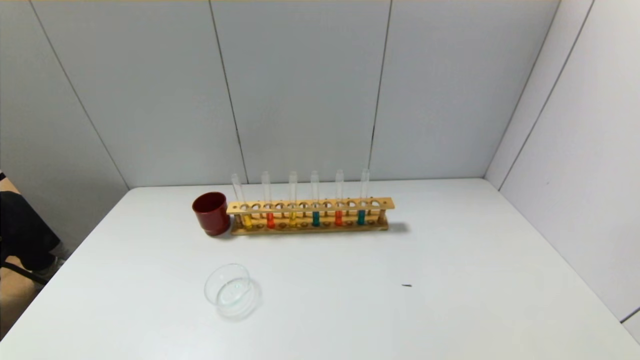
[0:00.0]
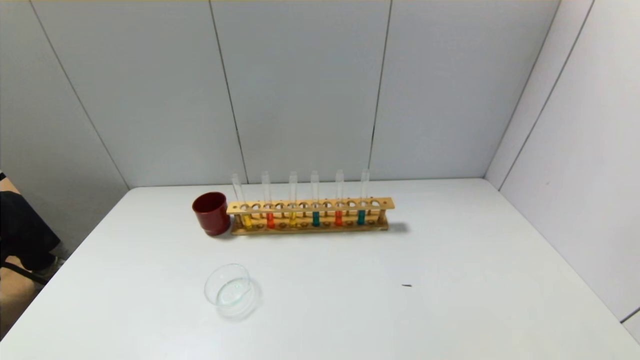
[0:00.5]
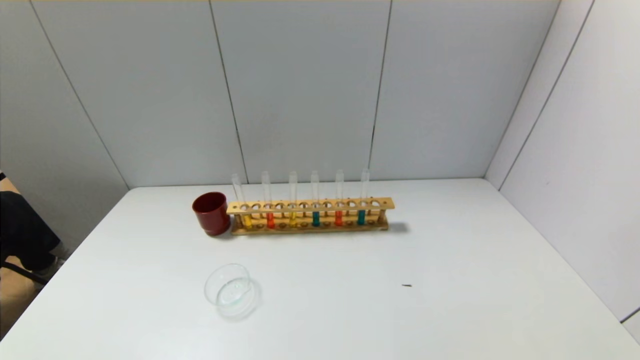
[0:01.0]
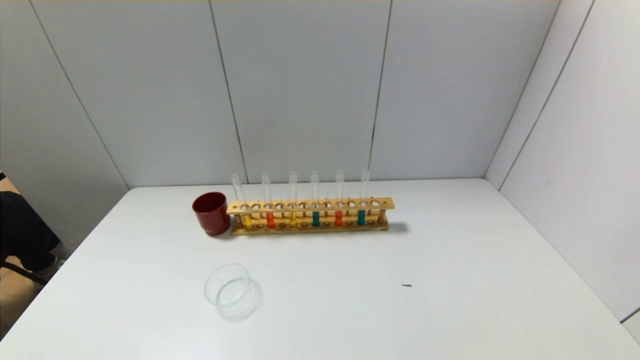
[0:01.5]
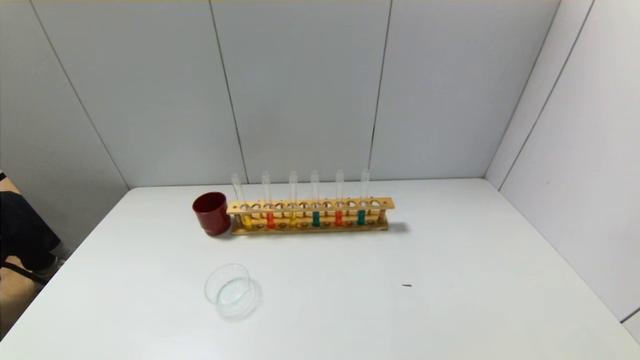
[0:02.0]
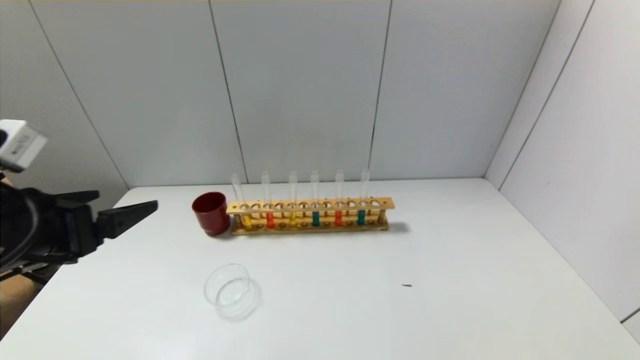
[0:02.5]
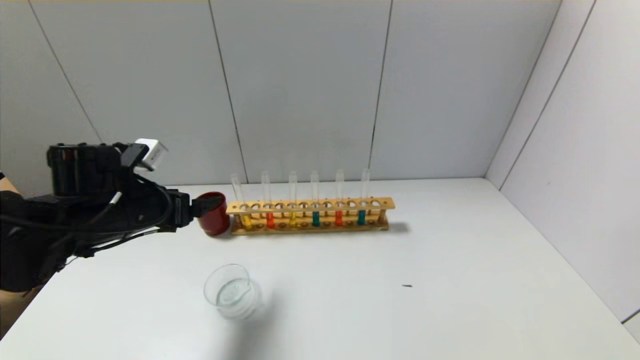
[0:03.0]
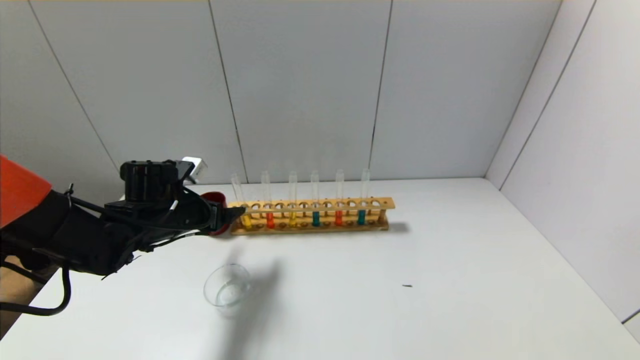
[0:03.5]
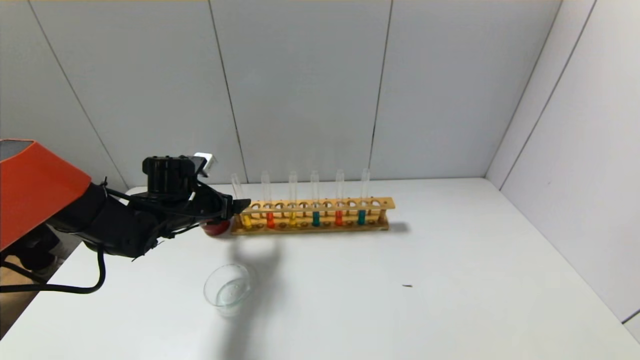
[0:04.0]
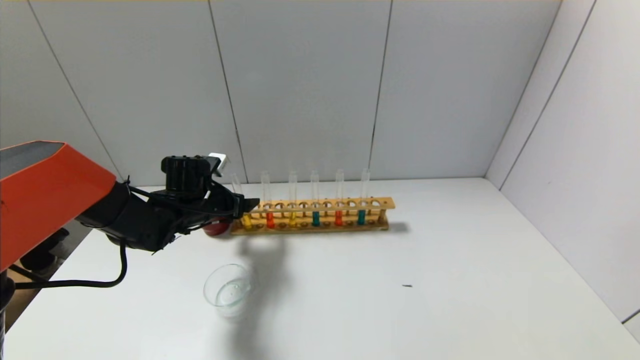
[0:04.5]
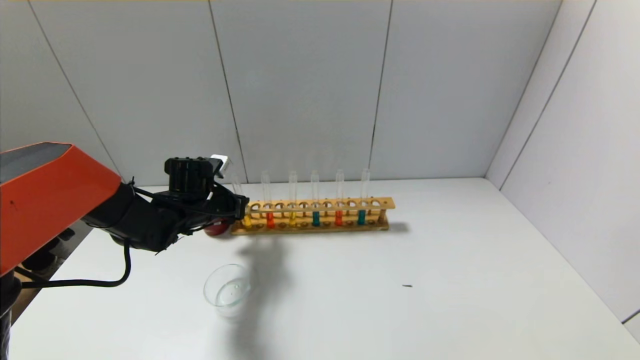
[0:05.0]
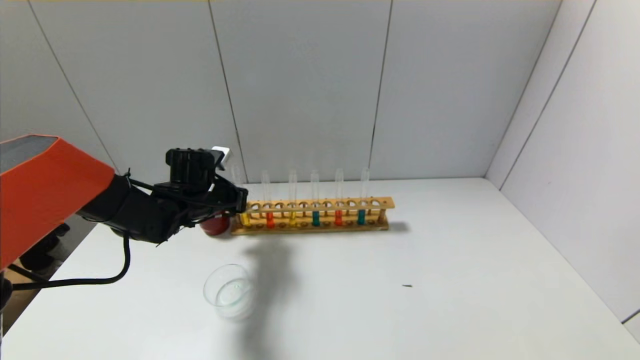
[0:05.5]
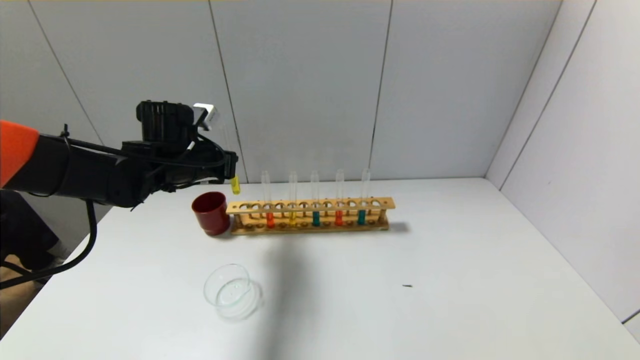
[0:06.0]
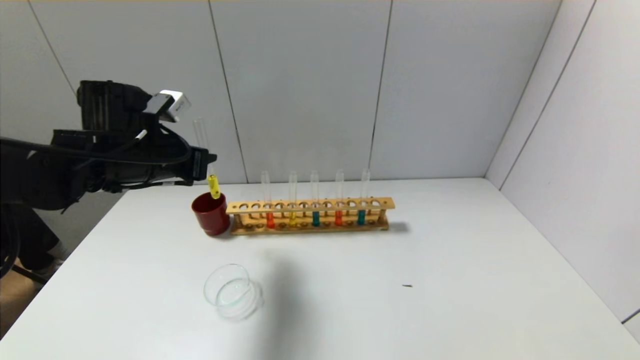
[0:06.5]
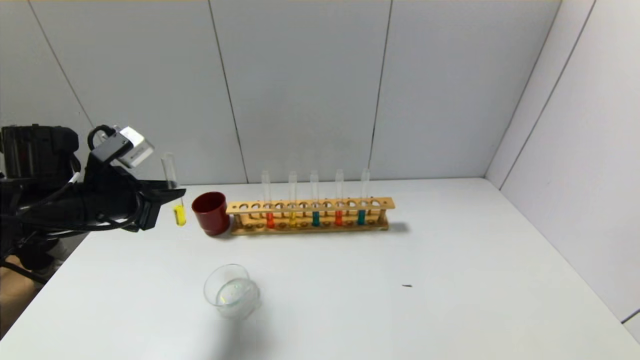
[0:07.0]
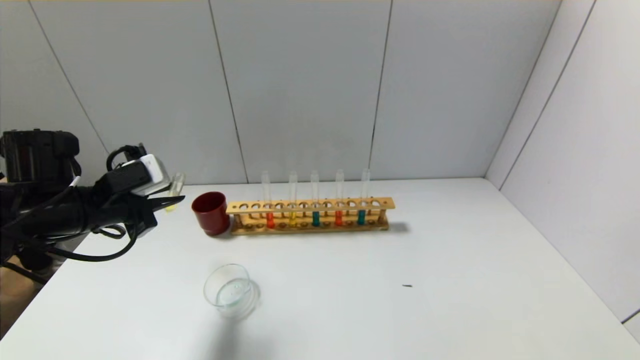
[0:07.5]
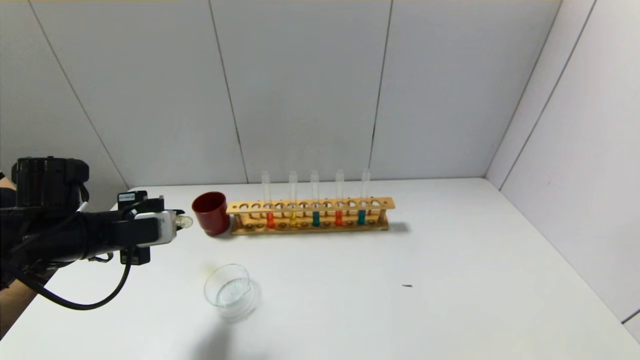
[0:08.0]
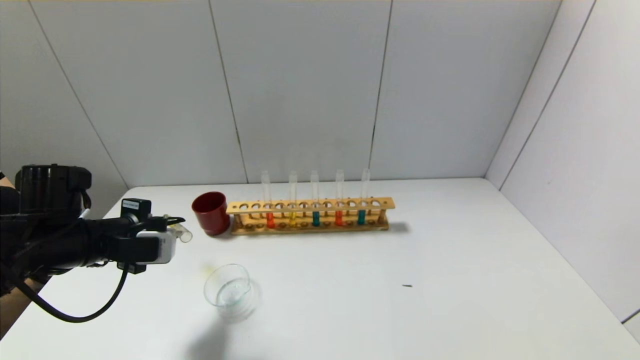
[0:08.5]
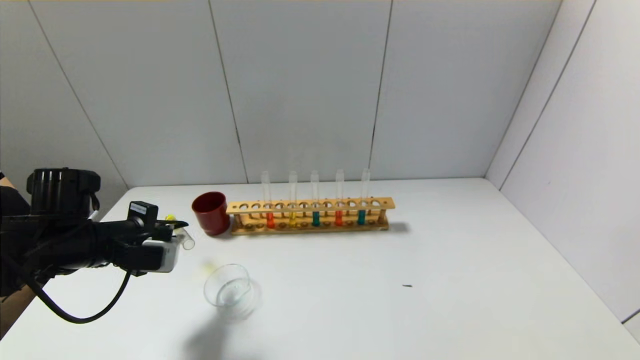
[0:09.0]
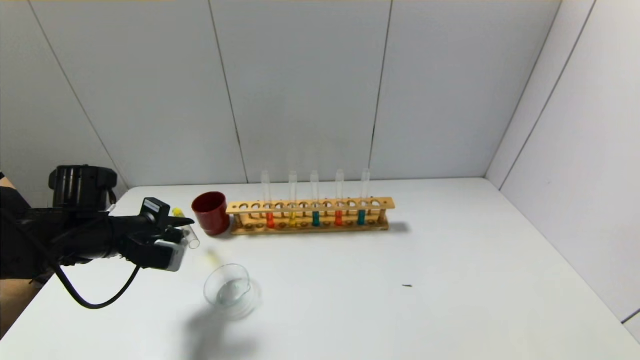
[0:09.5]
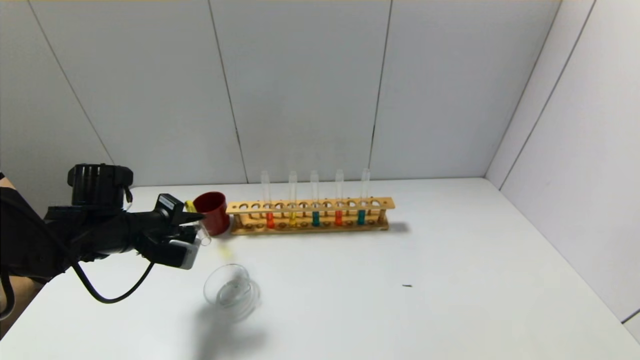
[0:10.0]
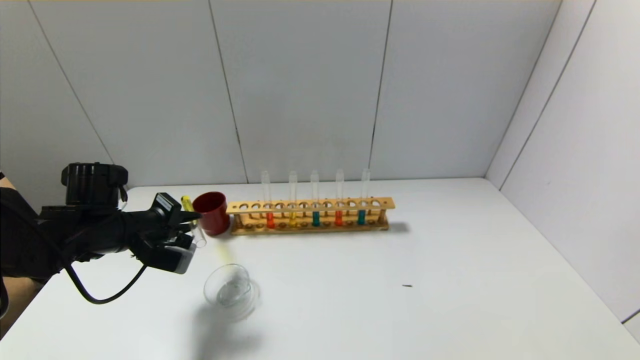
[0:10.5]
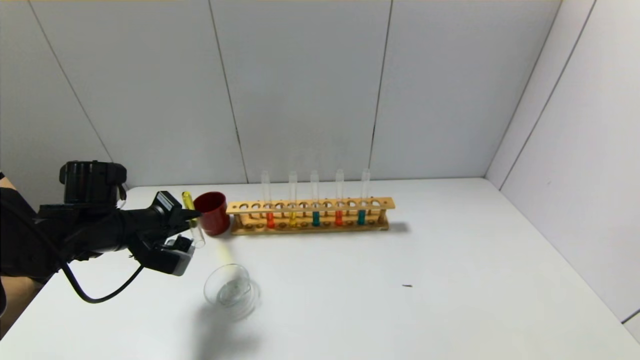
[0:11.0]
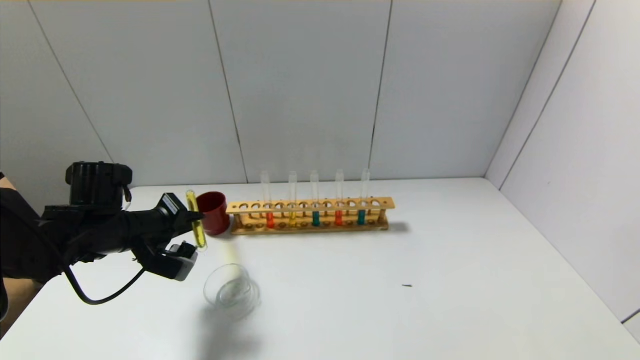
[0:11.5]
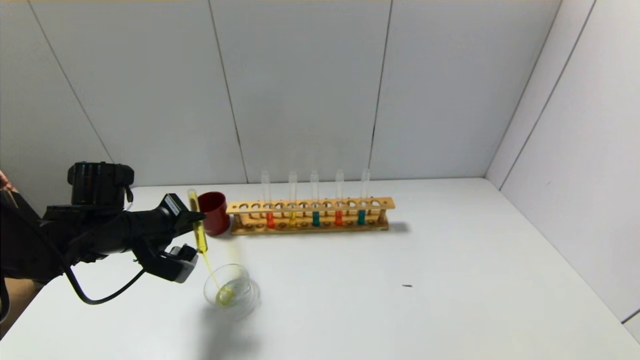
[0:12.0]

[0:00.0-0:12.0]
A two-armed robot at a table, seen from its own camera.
Step, 0:00.0 to 0:05.0: Grasp the yellow reagent with the left gripper.
0:02.0 to 0:04.0: The left gripper heads forward, covering roughly 40 cm.
0:04.0 to 0:06.0: The left gripper travels upward by some 10 cm, and closes its fingers.
0:06.0 to 0:08.0: The left gripper moves backward and to the left, approximately 15 cm.
0:08.0 to 0:10.0: The left gripper ends up about 5 cm from where it was.
0:10.0 to 0:12.0: The grippers make only small movements.

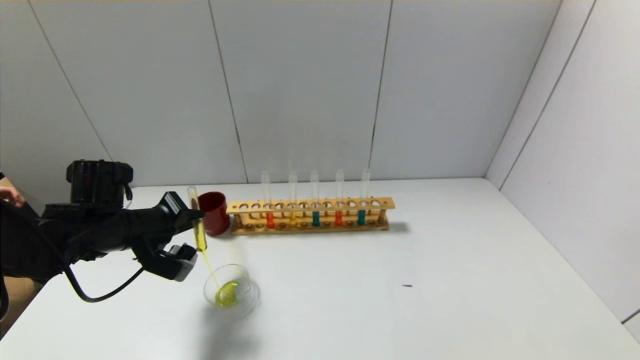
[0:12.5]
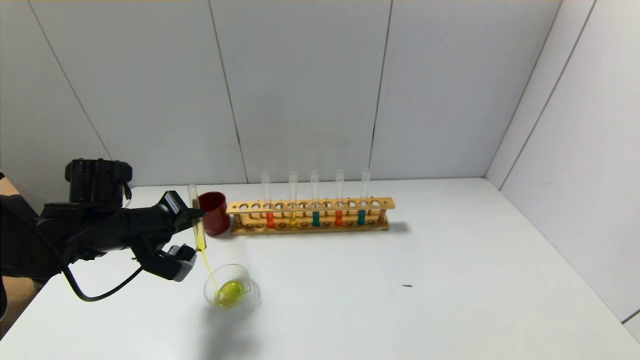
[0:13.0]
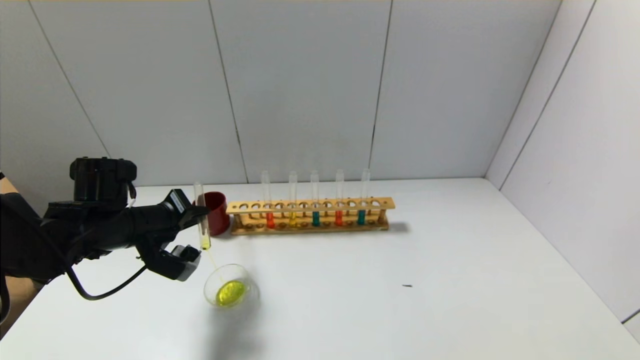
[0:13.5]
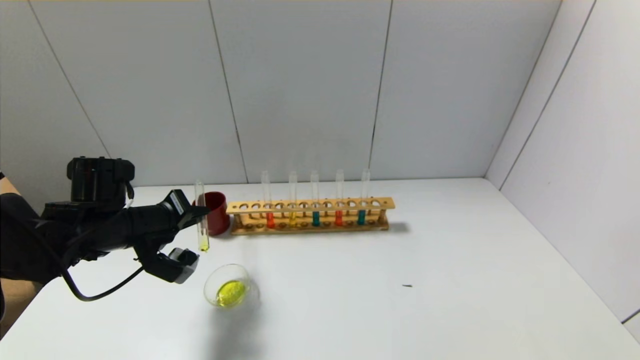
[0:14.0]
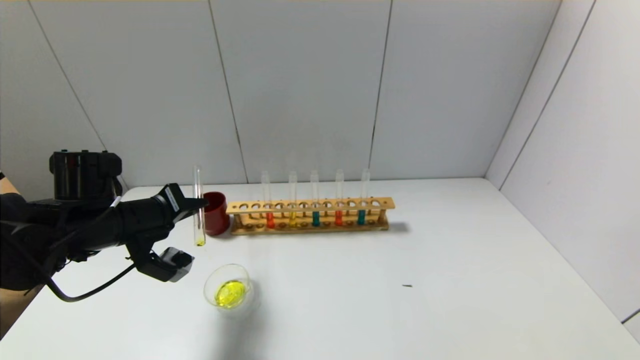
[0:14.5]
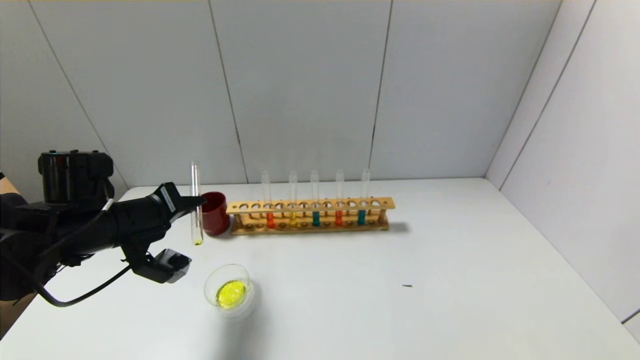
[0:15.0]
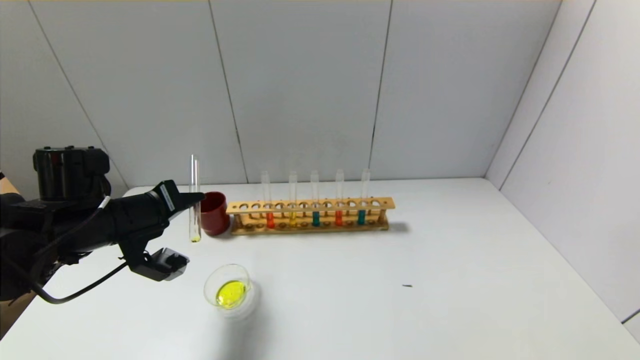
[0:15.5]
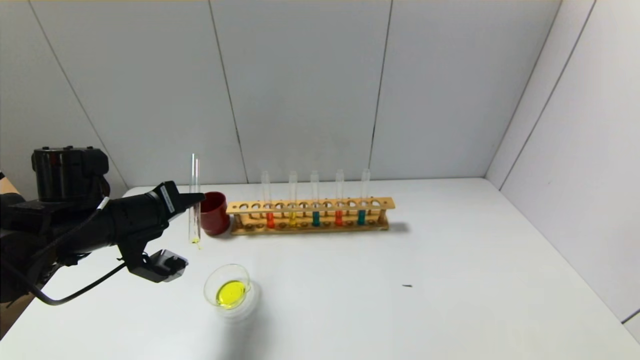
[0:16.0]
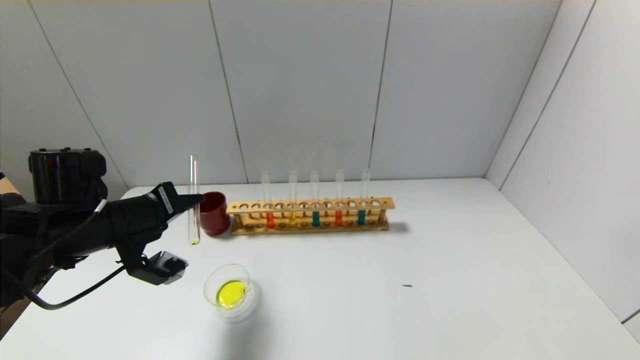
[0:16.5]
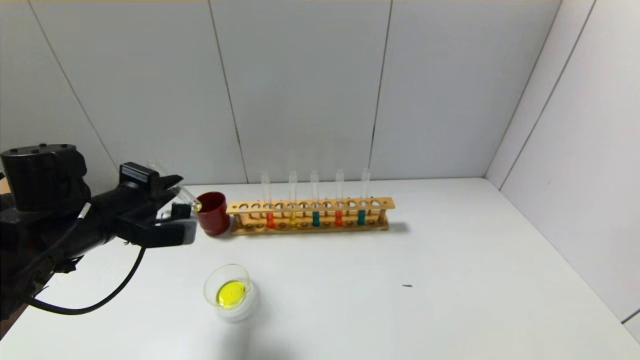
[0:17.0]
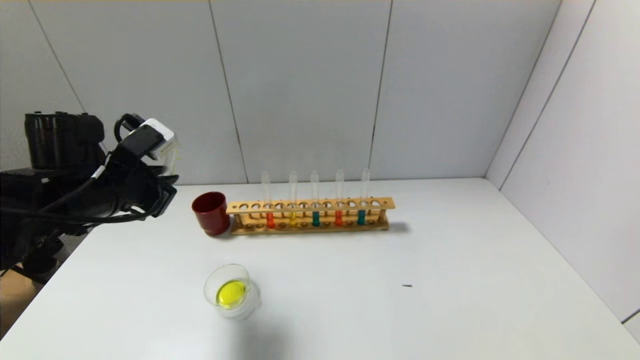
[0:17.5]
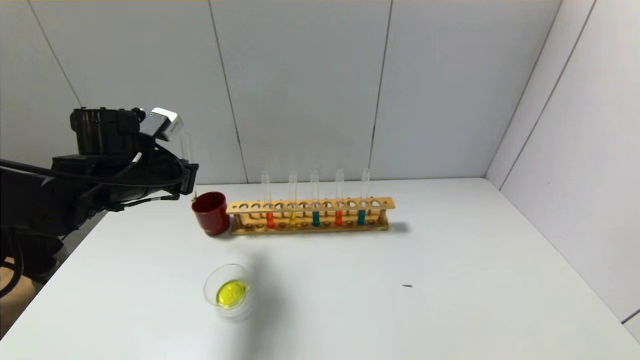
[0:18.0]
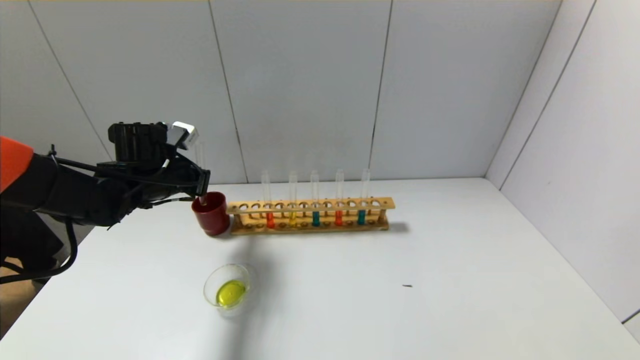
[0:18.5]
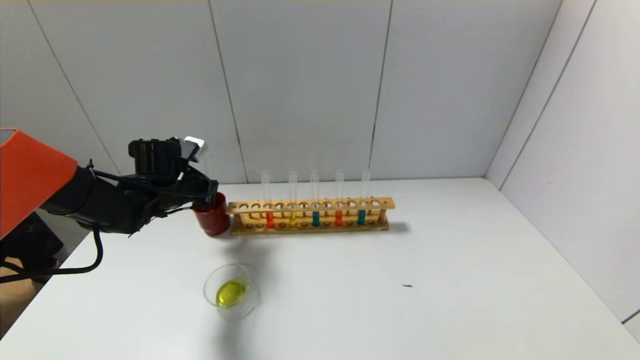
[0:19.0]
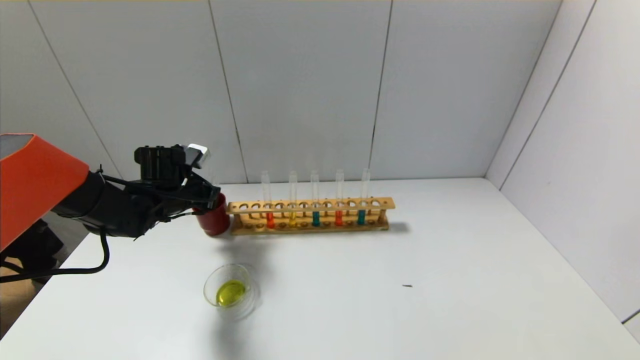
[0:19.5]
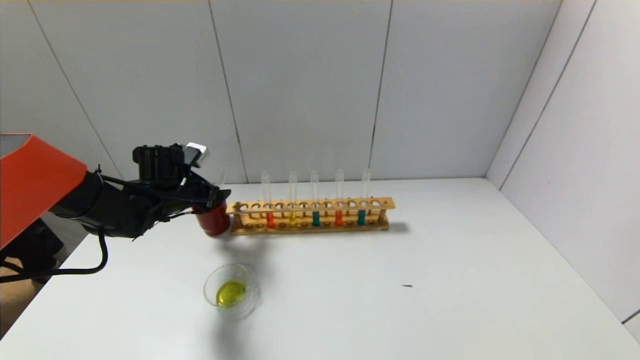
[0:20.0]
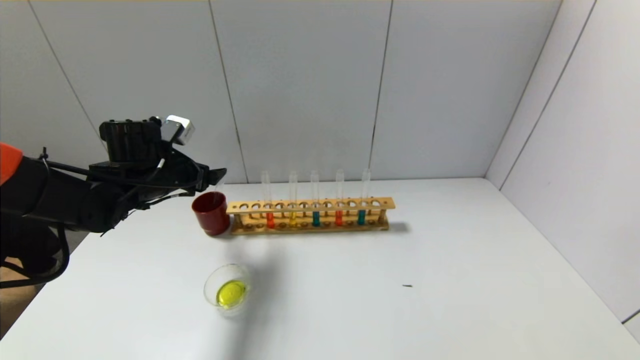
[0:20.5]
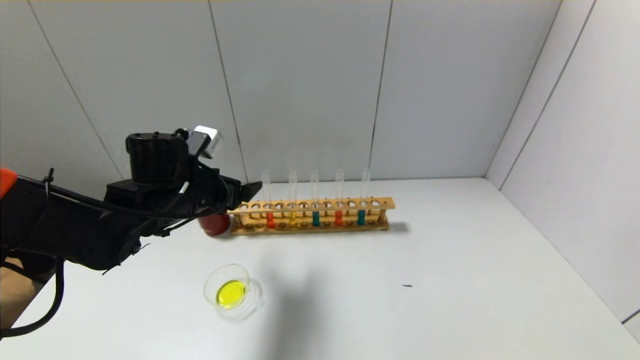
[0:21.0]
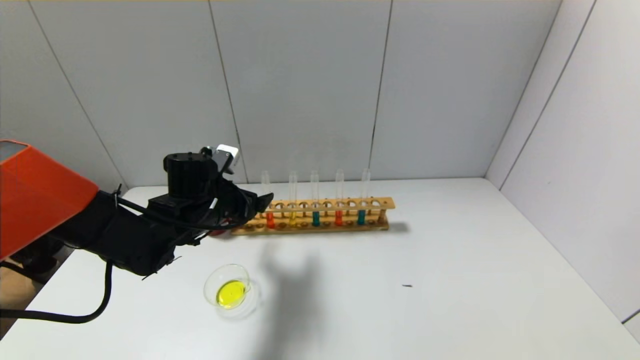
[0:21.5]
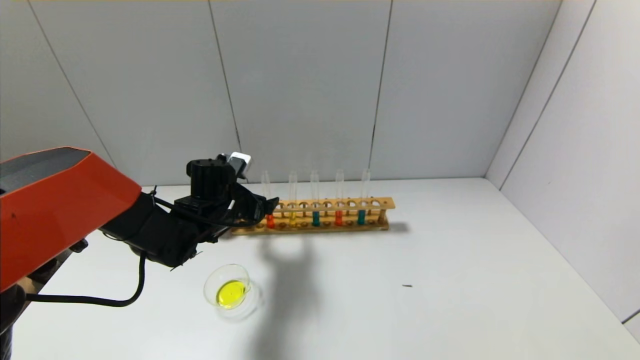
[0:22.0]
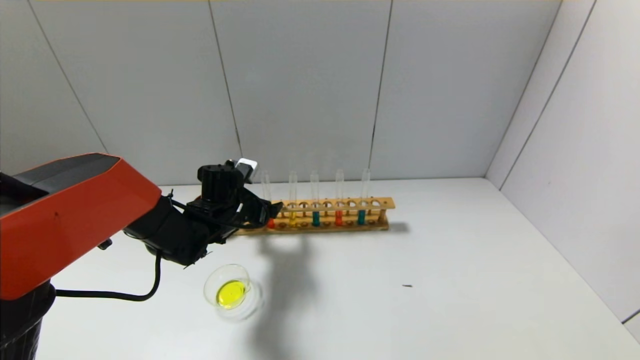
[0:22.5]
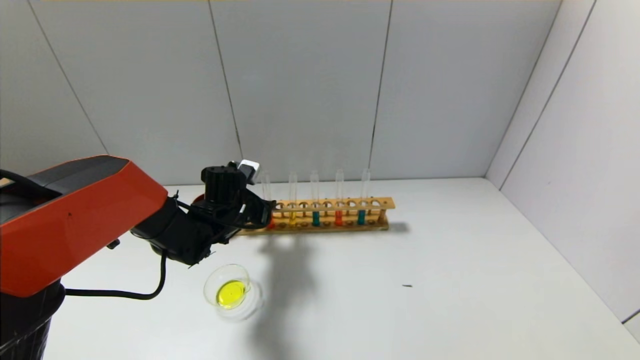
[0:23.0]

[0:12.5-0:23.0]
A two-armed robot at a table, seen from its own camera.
Step, 0:12.5 to 0:16.5: Pour the yellow reagent into the graduated cylinder with the left gripper.
Step, 0:17.0 to 0:19.5: Place the test tube into the brown cup with the left gripper.
0:12.5 to 0:14.5: There are only small adjustments of the grippers.
0:14.5 to 0:16.5: The grippers stay close to where they were, moving slightly.
0:16.5 to 0:19.0: The left gripper goes about 15 cm forward.
0:19.0 to 0:21.0: The left gripper is displaced backward and to the right by roughly 10 cm, and opens its fingers.
0:21.0 to 0:23.0: The left gripper travels downward and forward by about 10 cm, and closes.
